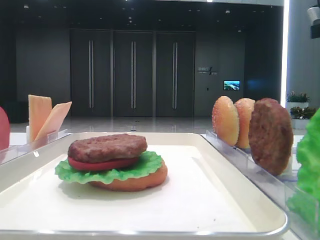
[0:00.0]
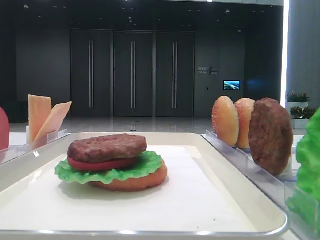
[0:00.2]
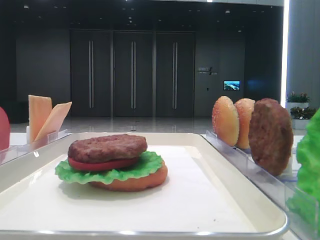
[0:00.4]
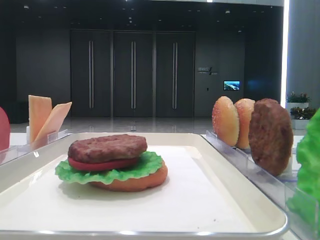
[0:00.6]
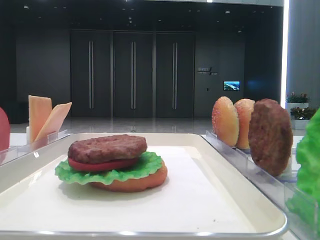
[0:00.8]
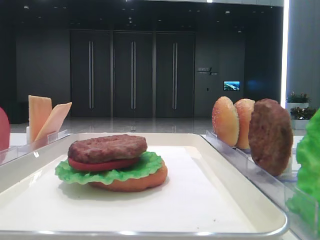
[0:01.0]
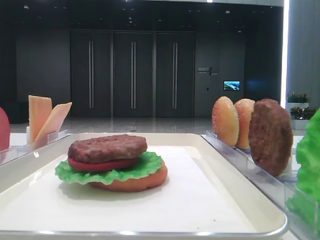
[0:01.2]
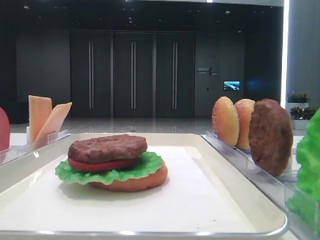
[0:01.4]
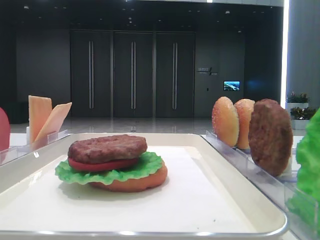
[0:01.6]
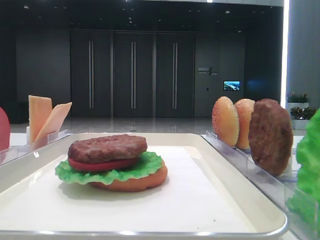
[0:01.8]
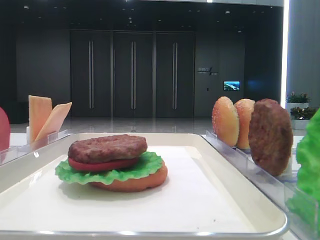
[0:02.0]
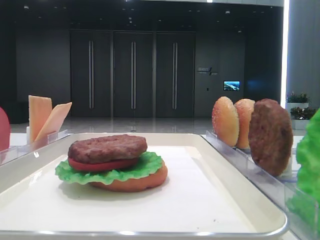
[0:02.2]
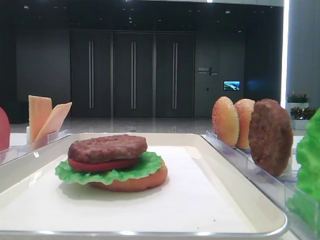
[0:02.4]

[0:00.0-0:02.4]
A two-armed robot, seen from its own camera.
0:00.0 to 0:01.2: The right gripper travels backward by roughly 30 cm.

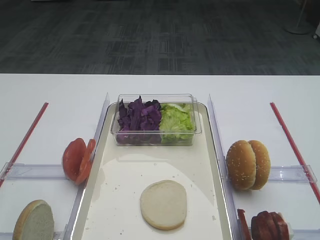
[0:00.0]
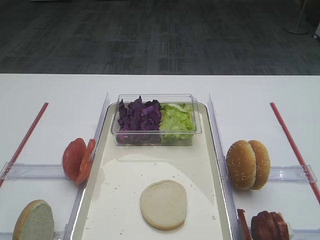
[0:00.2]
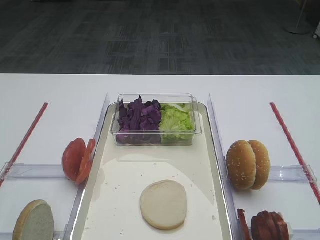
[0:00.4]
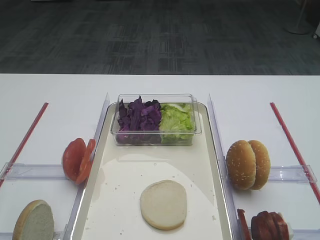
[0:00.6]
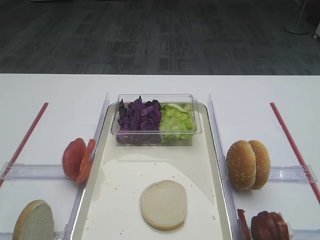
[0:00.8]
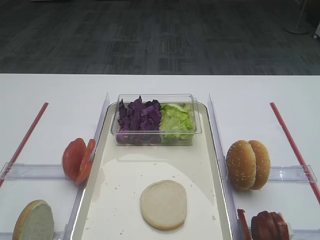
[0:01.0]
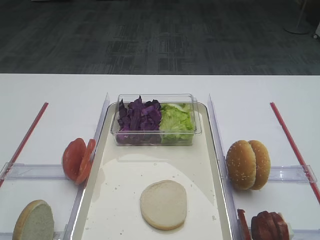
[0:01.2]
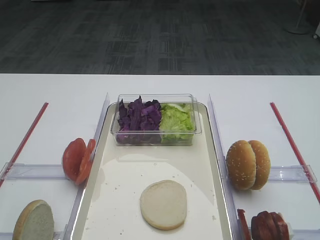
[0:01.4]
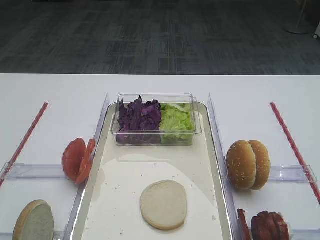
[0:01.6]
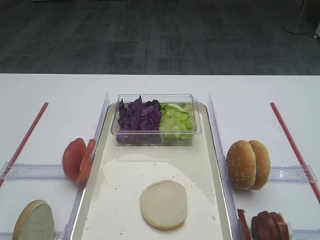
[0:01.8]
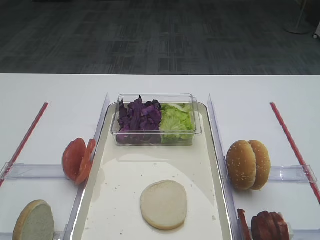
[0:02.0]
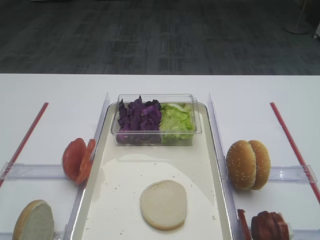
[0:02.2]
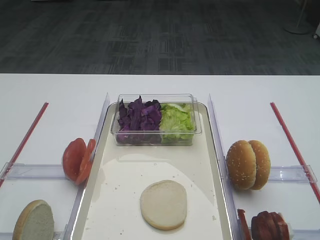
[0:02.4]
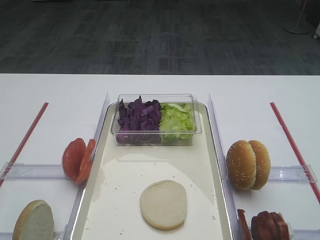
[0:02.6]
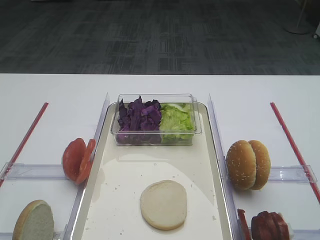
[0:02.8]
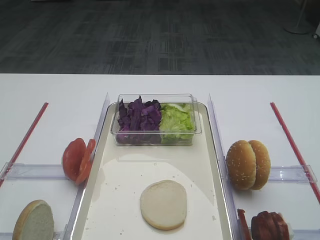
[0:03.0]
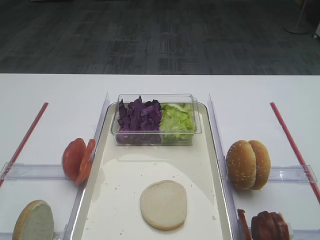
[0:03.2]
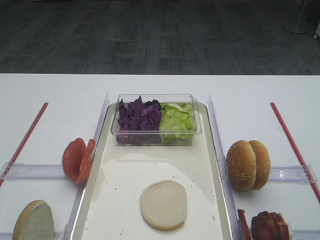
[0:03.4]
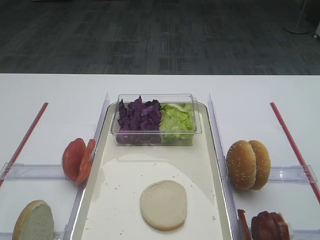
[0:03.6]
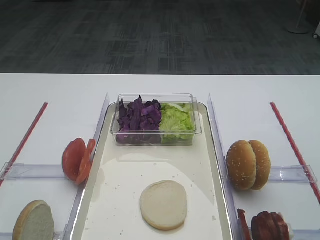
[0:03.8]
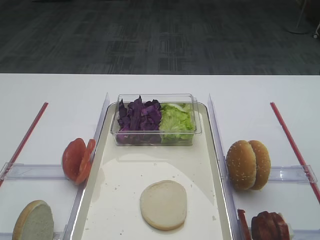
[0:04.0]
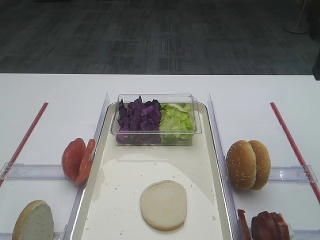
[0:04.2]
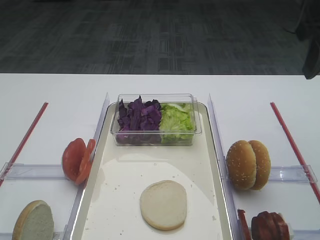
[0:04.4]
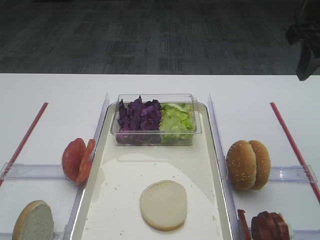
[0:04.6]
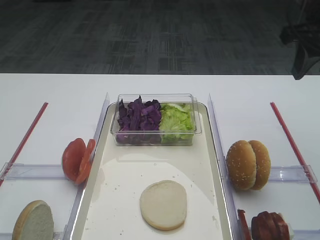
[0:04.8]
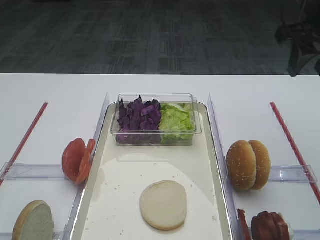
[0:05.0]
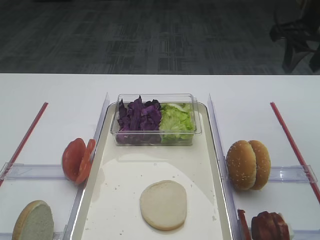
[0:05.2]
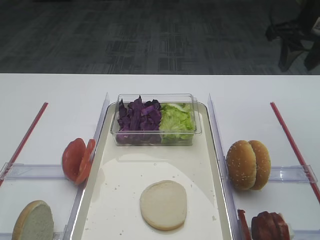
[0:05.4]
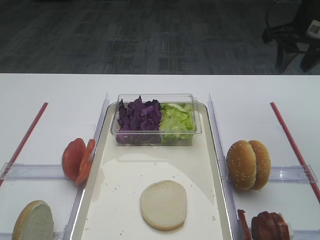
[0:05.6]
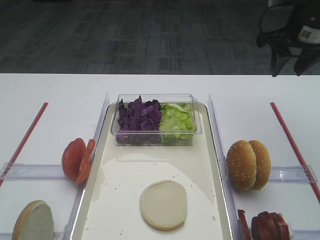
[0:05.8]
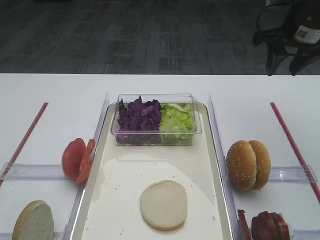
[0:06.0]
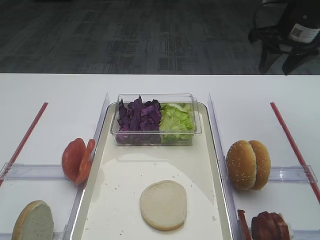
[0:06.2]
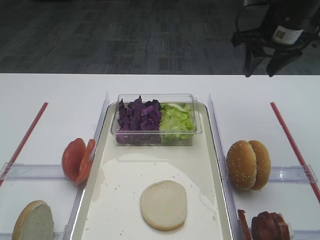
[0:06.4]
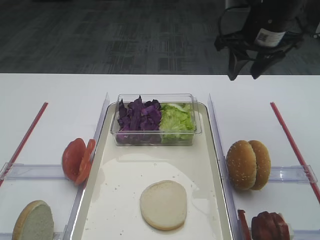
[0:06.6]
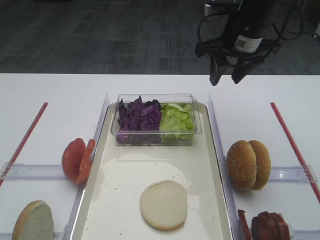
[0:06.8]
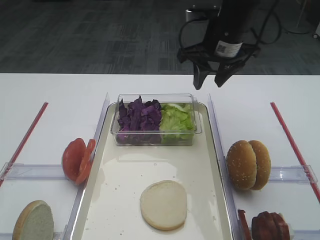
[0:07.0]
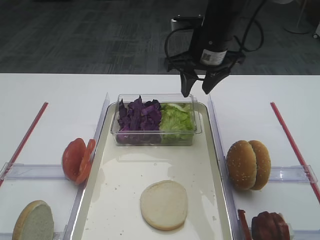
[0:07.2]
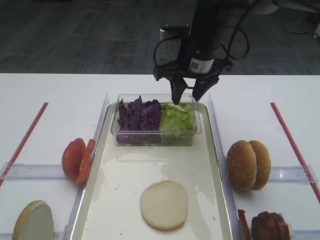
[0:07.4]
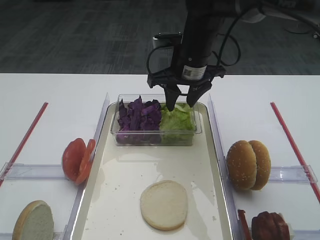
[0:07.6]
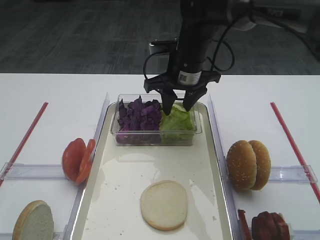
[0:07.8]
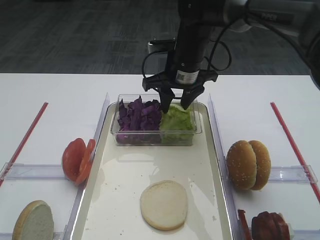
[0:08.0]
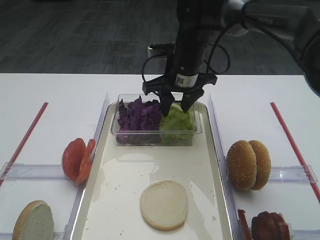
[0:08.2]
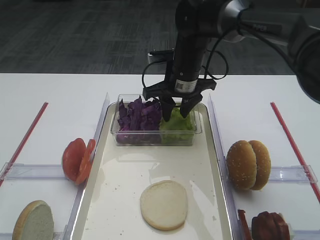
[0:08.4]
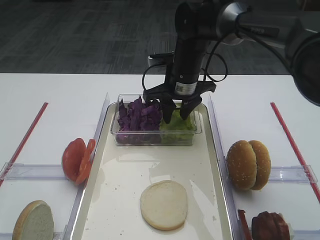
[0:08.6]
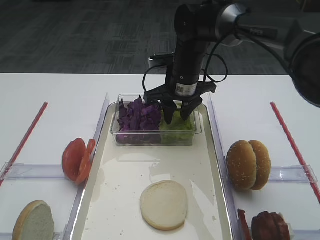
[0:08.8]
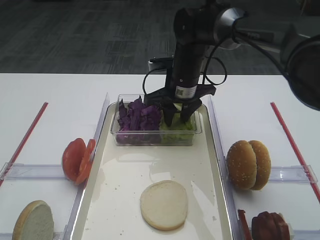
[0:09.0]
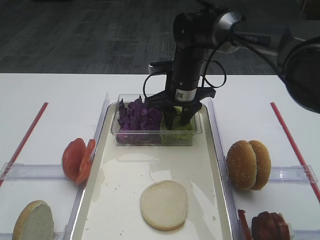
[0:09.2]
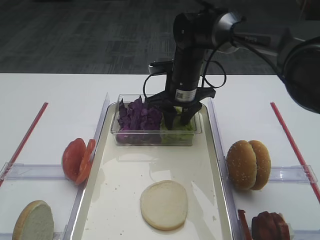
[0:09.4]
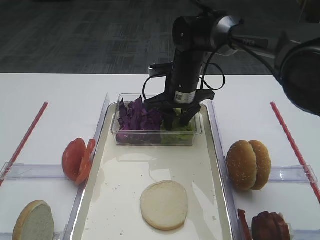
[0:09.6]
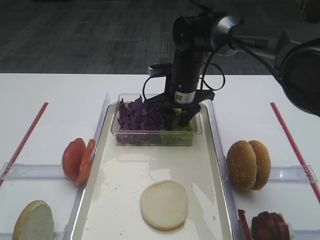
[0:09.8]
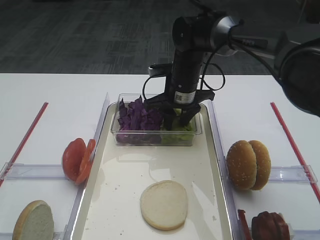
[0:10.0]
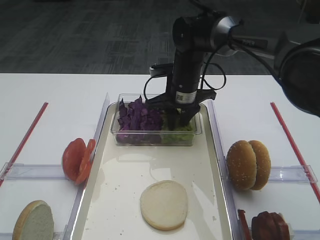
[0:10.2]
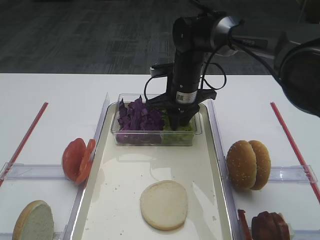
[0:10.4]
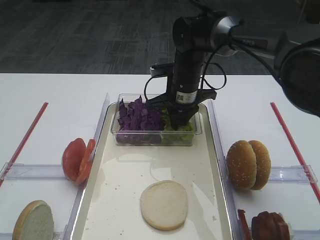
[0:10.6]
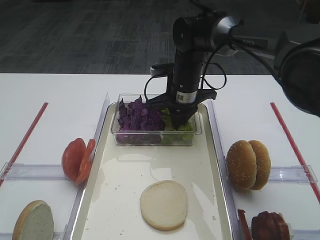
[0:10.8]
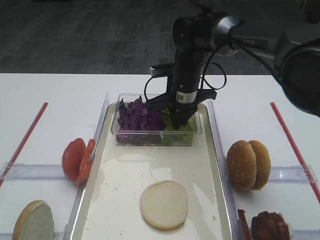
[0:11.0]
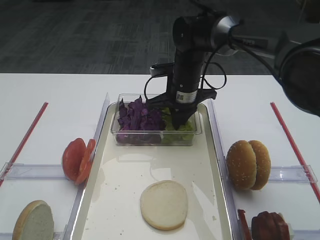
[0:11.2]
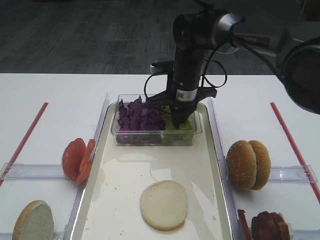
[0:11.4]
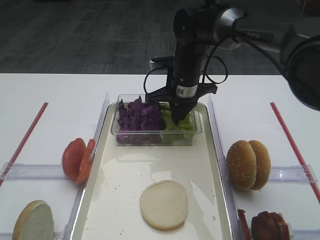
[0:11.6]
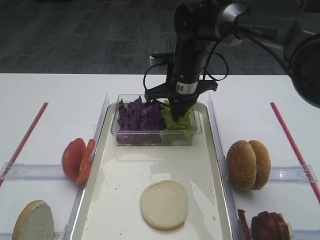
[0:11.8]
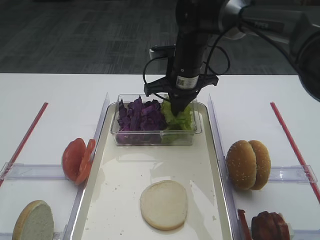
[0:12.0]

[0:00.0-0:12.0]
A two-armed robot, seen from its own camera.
0:03.0 to 0:04.4: The right gripper shifts some 20 cm forward.
0:04.4 to 0:06.0: The right gripper travels forward and downward by roughly 15 cm.
0:06.0 to 0:07.6: The right gripper travels to the left by approximately 20 cm.
0:07.6 to 0:09.0: The right gripper heads downward, covering about 5 cm.
0:09.0 to 0:10.4: The grippers move only a little.
0:10.4 to 0:12.0: The right gripper closes up.

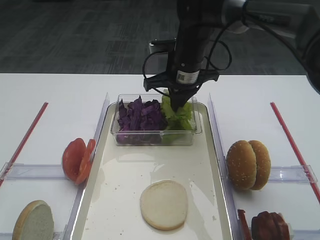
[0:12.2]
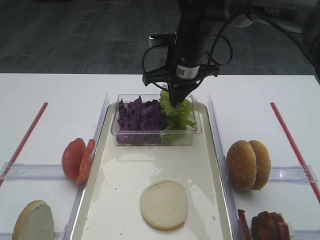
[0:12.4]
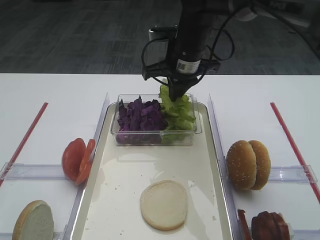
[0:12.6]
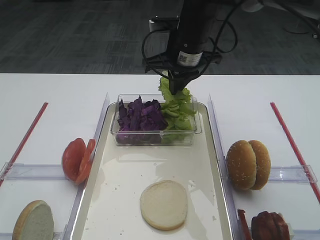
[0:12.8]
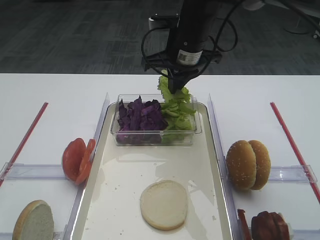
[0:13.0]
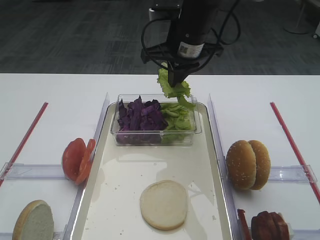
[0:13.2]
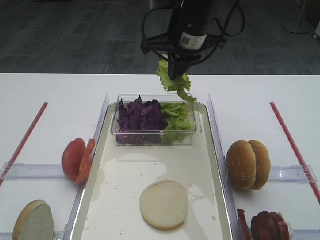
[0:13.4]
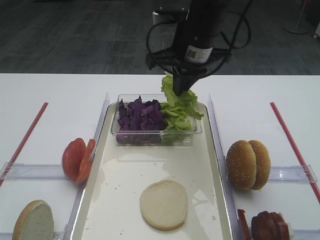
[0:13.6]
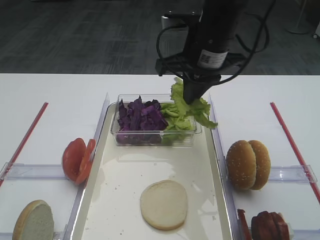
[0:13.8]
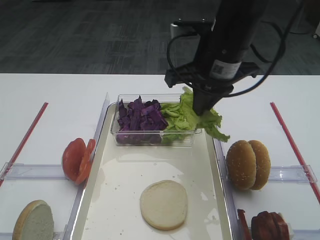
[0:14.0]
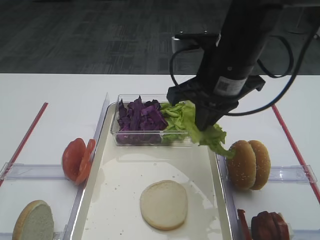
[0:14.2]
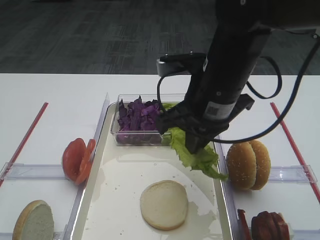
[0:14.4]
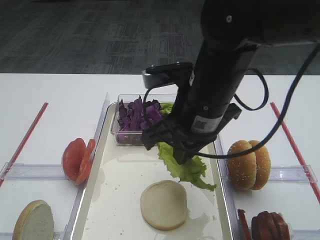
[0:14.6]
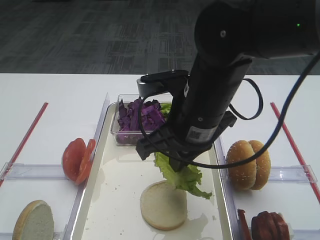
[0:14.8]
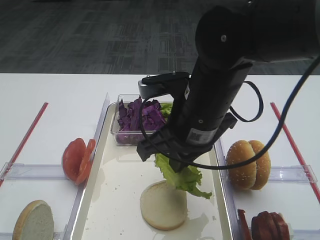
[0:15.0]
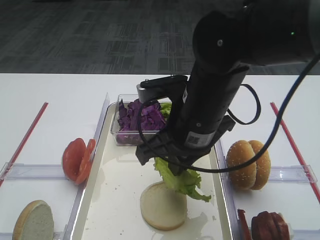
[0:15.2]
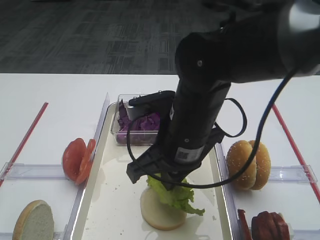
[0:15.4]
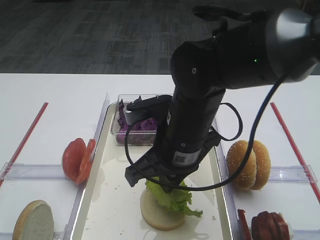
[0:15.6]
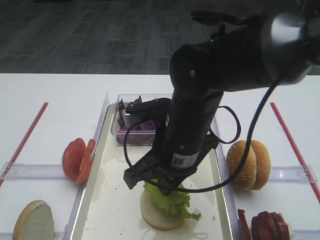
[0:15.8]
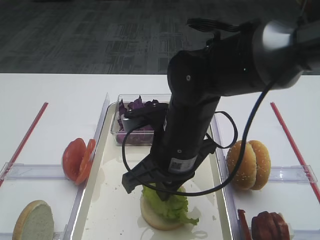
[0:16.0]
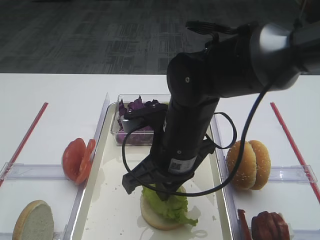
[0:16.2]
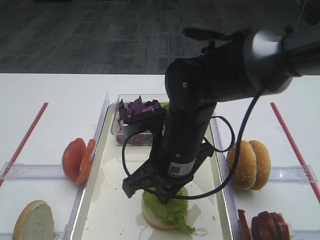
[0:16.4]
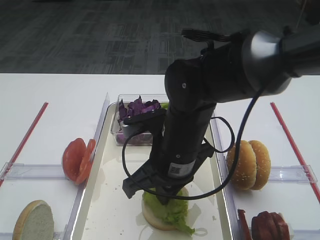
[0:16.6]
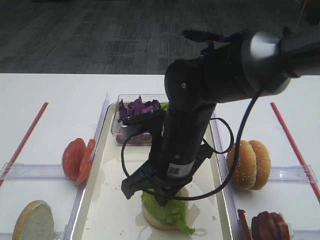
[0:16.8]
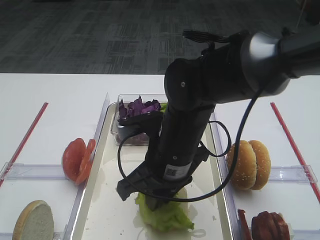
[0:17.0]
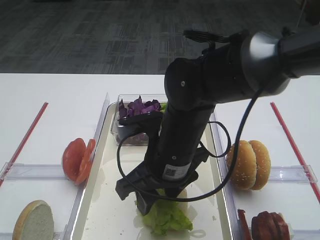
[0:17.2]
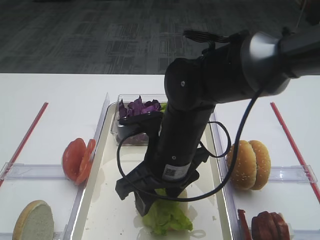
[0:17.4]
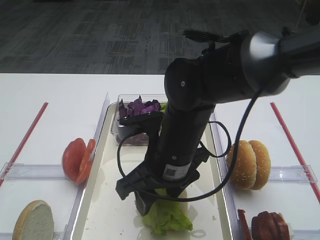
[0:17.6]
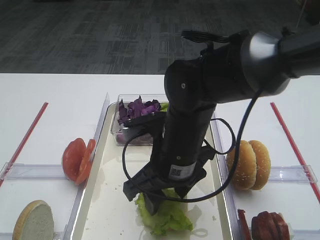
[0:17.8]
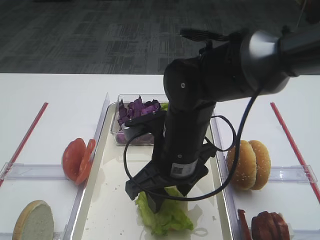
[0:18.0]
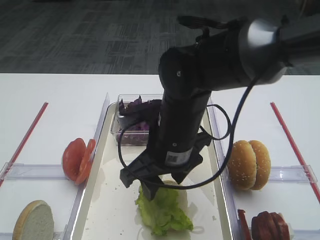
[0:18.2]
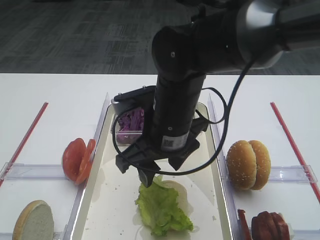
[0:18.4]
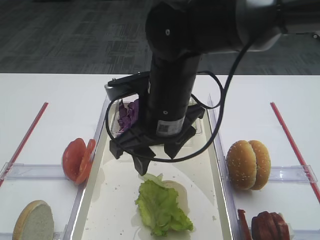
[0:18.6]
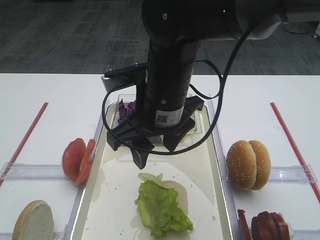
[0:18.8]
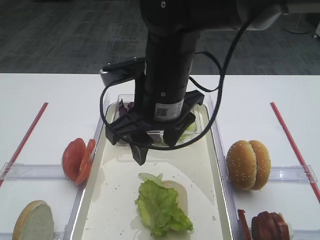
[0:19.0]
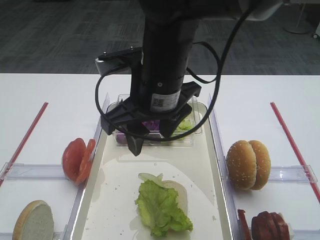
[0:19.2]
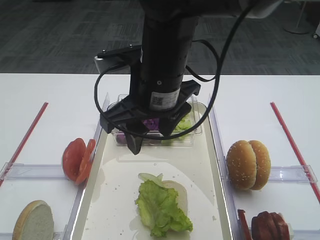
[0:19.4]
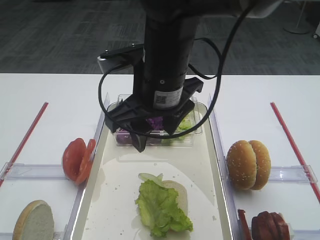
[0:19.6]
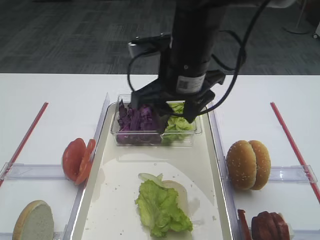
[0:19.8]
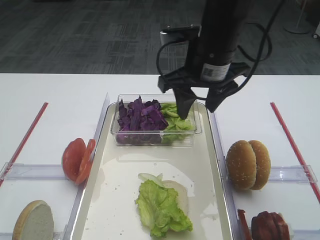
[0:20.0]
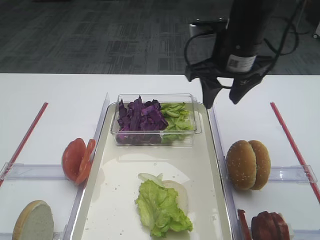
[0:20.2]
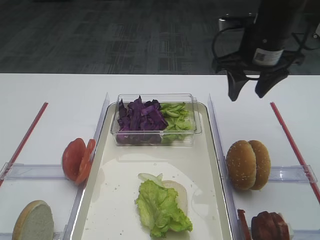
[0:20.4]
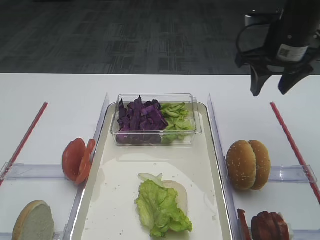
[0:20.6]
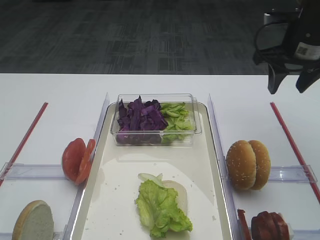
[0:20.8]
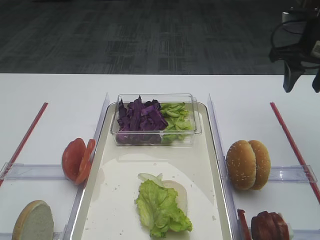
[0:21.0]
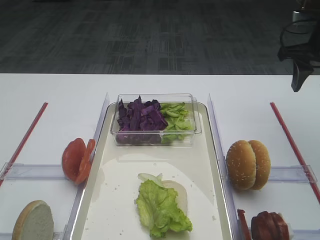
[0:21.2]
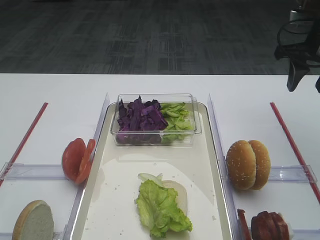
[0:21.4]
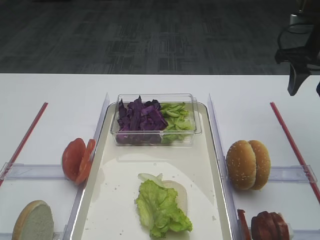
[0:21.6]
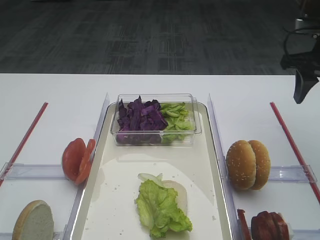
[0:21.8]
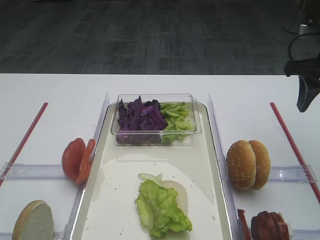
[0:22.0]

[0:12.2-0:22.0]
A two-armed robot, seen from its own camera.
Step, 0:13.0 to 0:18.2: Place the lettuce leaf on the bread slice with the right gripper.
0:12.2 to 0:13.6: The right gripper shifts some 5 cm upward.
0:13.6 to 0:15.0: The right gripper travels backward by some 15 cm.
0:15.0 to 0:16.4: The right gripper is displaced downward by approximately 5 cm.
0:16.4 to 0:17.8: The right gripper opens its fingers.
0:17.8 to 0:19.2: The right gripper goes some 10 cm upward.
0:19.2 to 0:20.6: The right gripper is displaced to the right and forward by about 25 cm.
0:20.6 to 0:22.0: The right gripper goes approximately 5 cm to the right.
